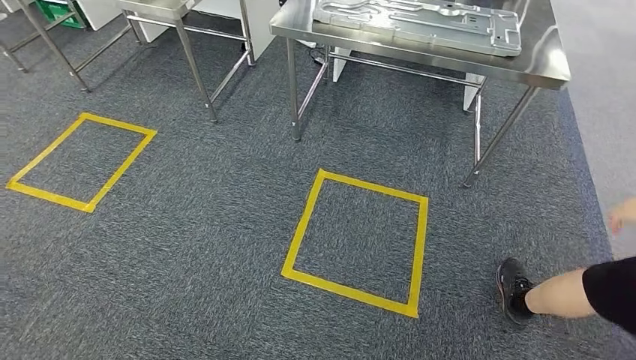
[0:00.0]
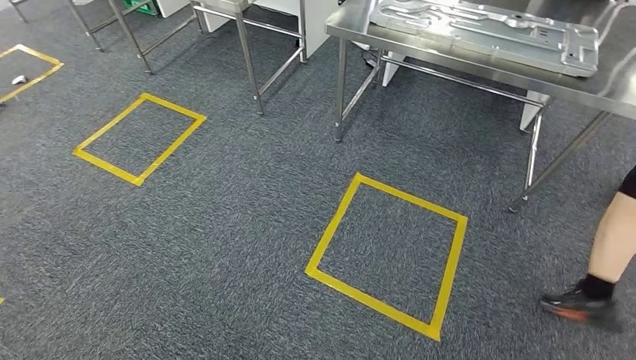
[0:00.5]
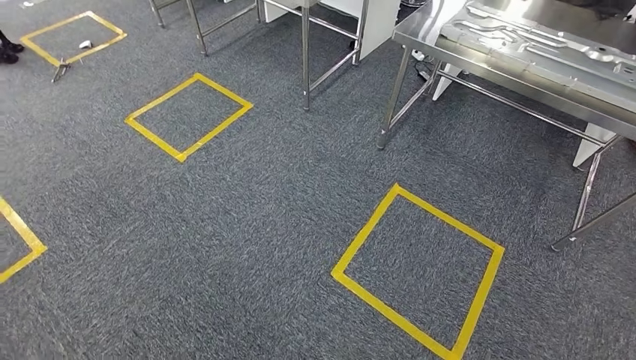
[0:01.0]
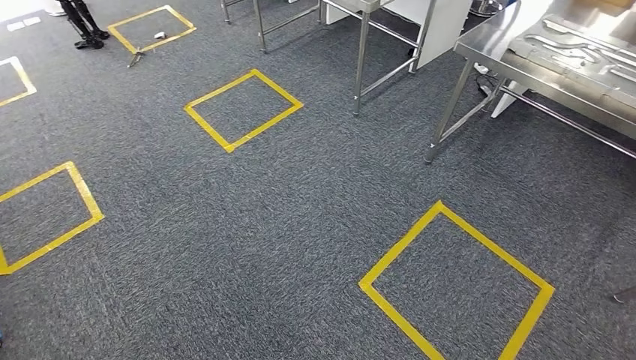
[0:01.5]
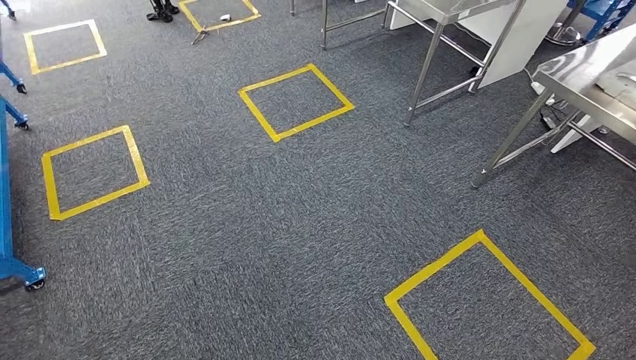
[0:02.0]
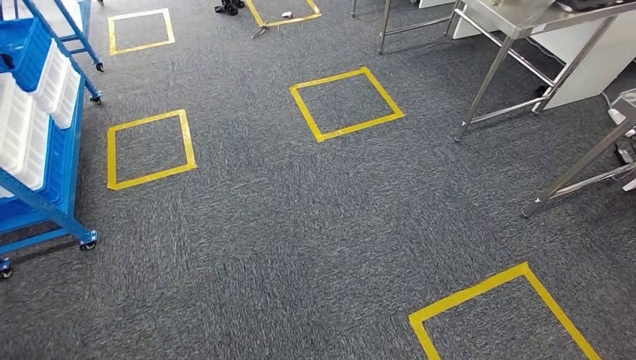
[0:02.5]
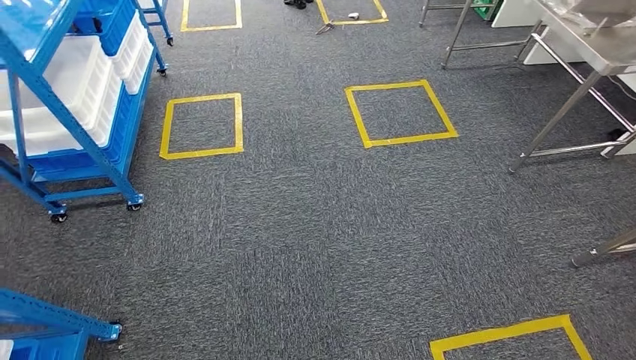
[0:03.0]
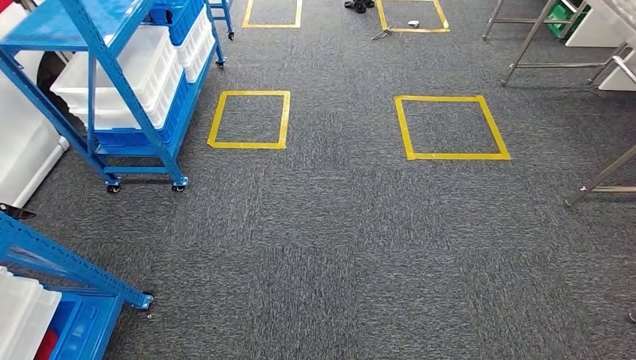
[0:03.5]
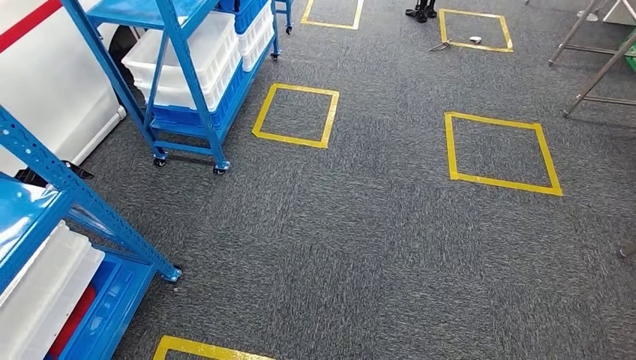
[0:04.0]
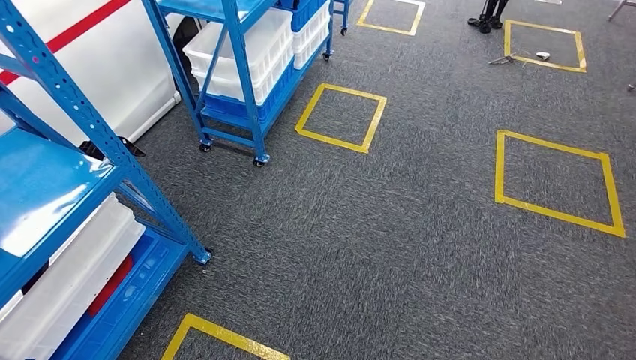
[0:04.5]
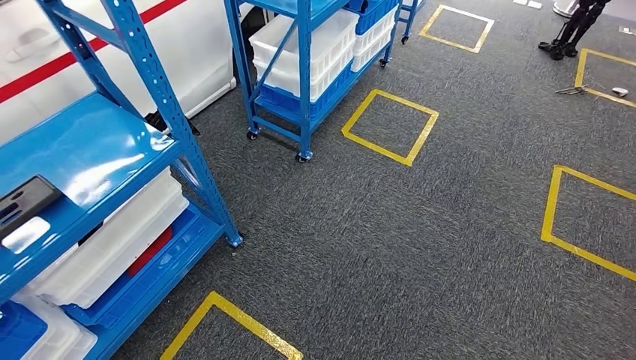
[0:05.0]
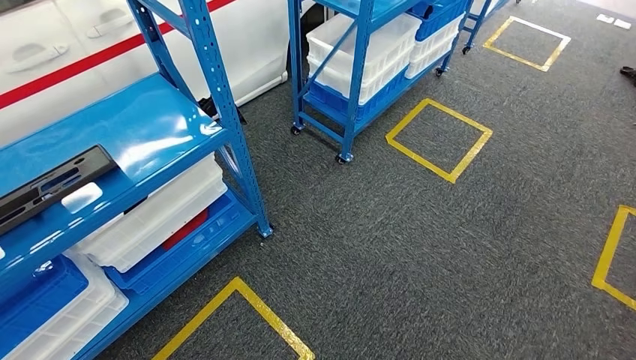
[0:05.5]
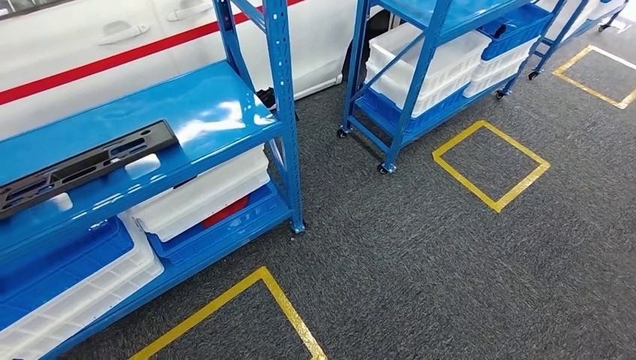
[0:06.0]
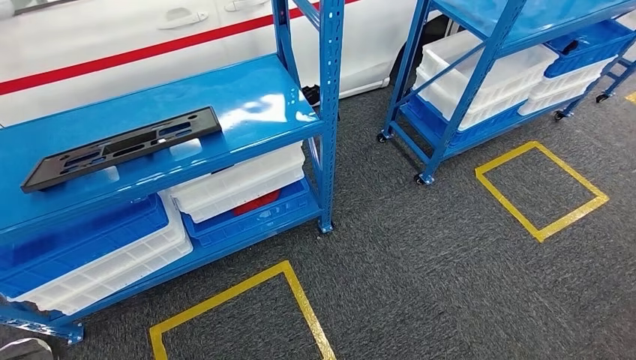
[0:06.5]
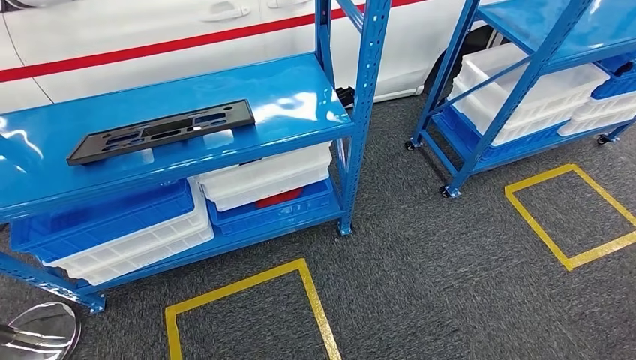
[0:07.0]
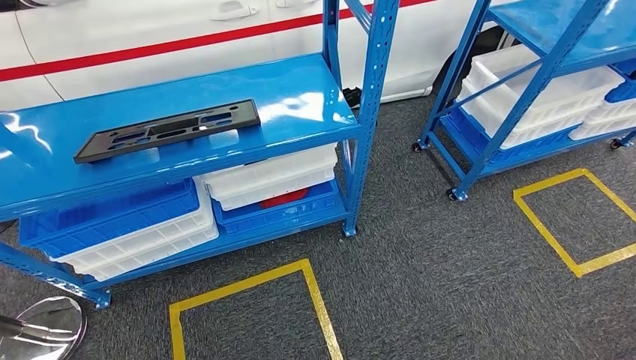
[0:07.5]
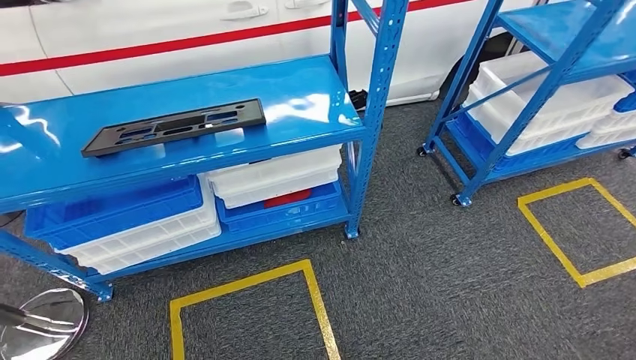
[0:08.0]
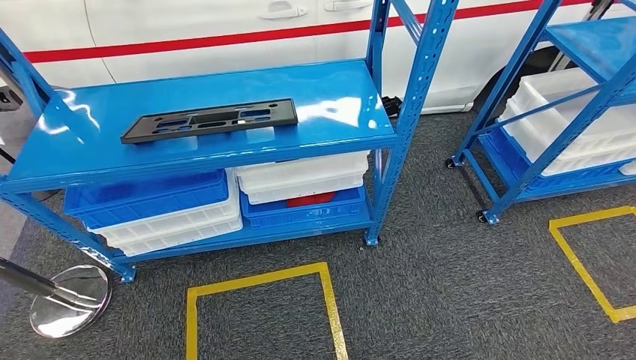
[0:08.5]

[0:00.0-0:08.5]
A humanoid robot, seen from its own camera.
Step, 0:00.0 to 0:08.5: Move to the initial position of the shelf.

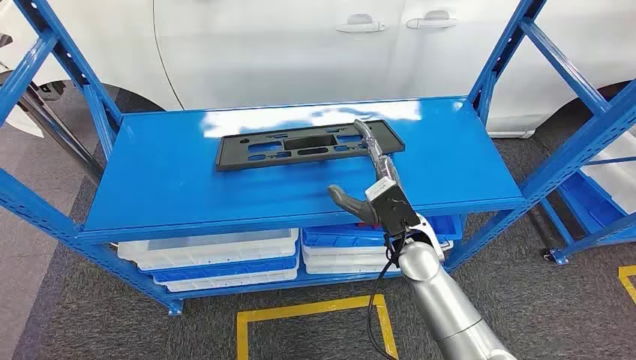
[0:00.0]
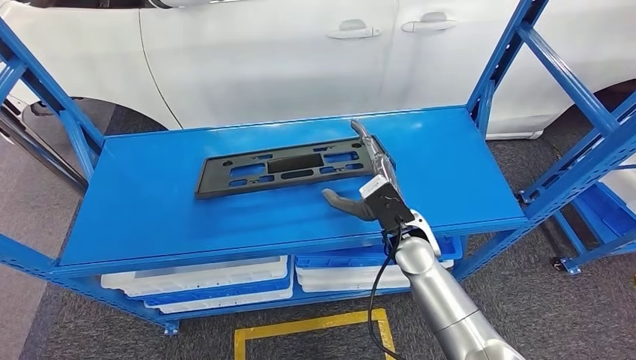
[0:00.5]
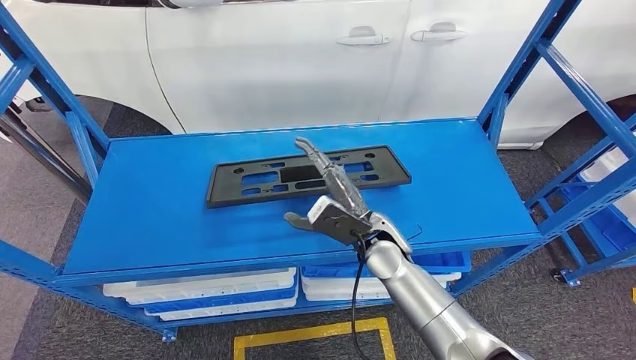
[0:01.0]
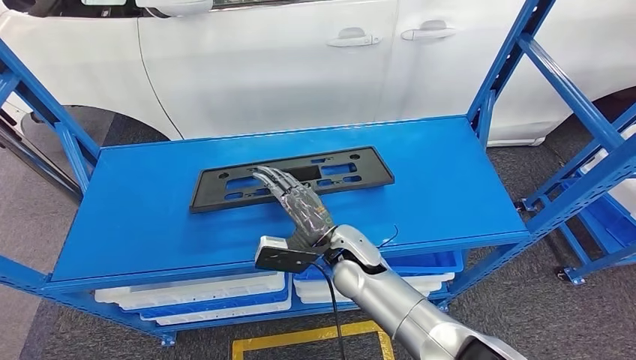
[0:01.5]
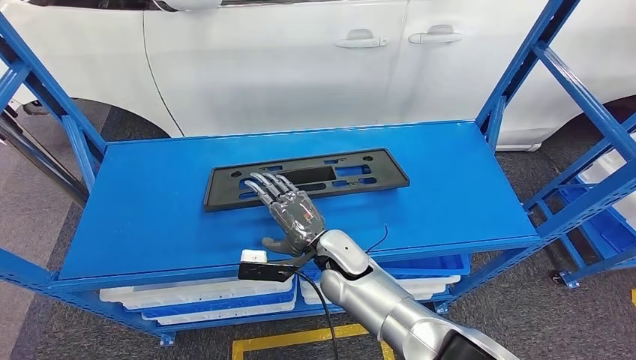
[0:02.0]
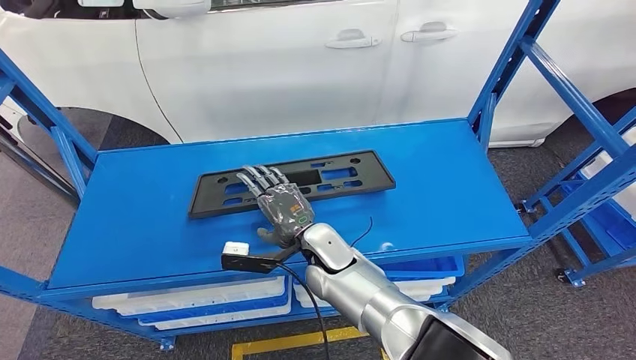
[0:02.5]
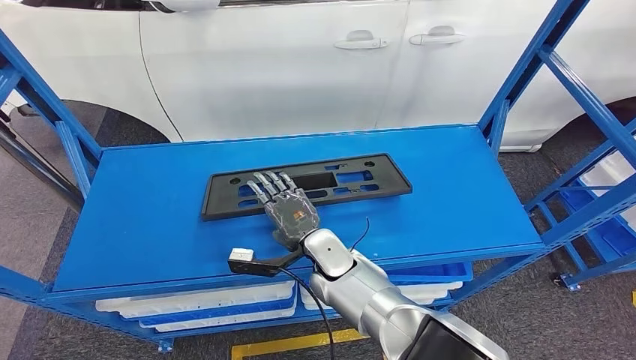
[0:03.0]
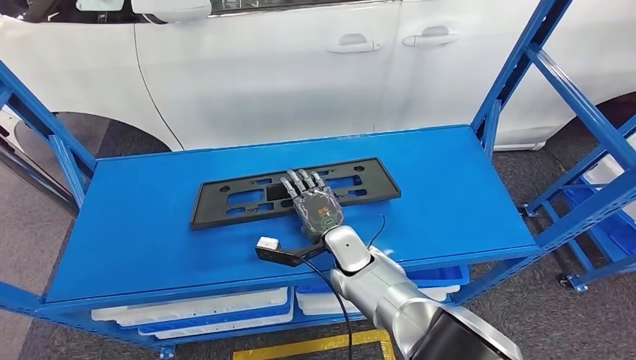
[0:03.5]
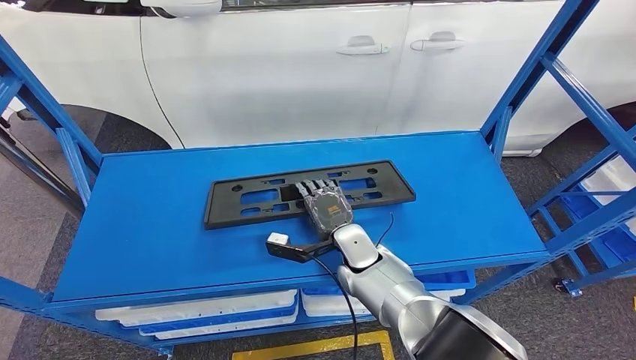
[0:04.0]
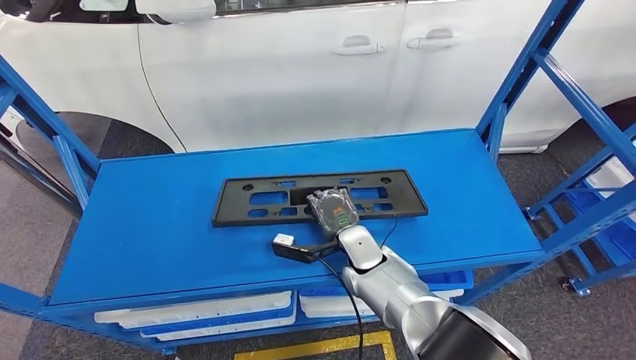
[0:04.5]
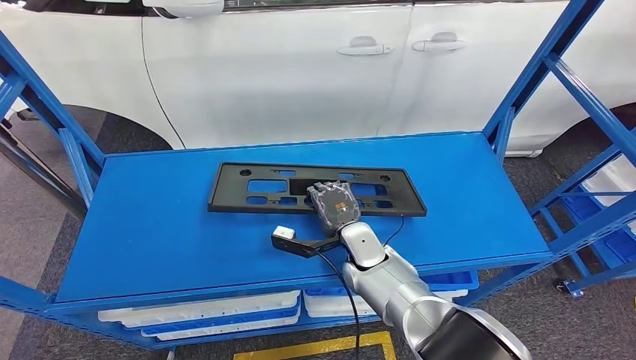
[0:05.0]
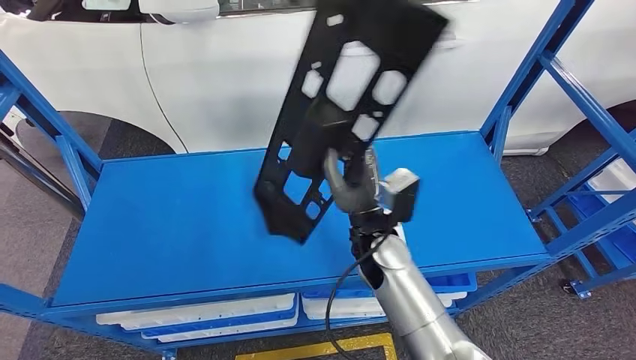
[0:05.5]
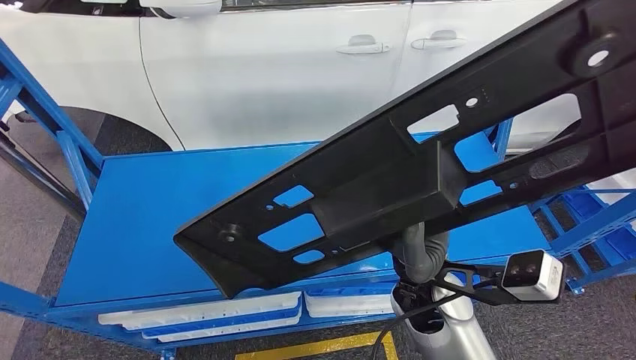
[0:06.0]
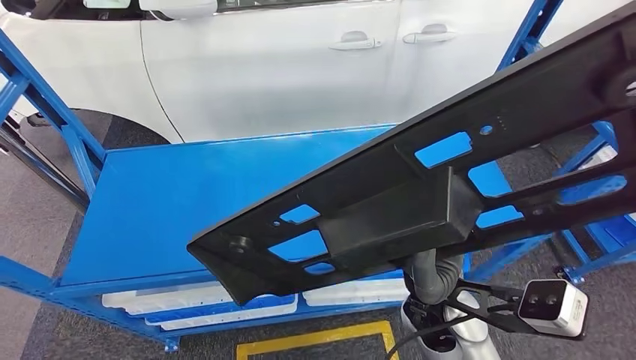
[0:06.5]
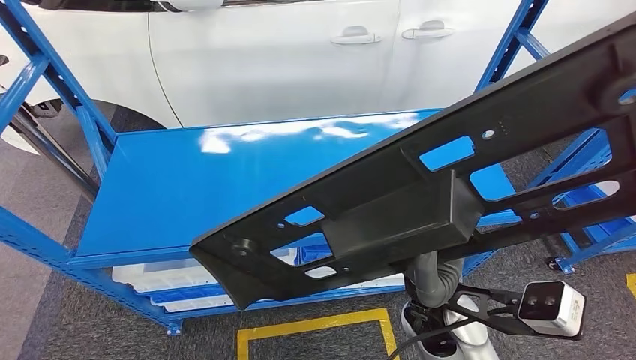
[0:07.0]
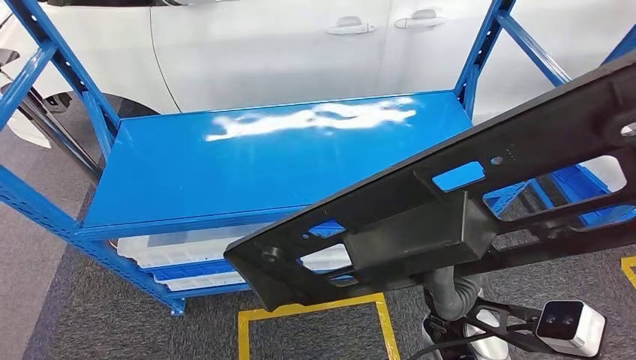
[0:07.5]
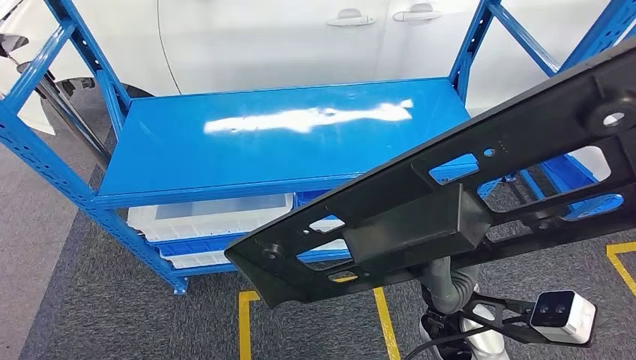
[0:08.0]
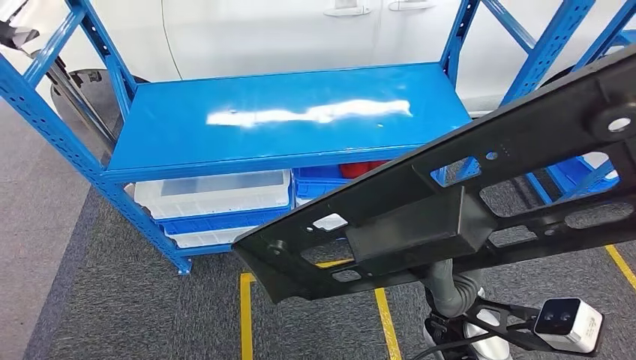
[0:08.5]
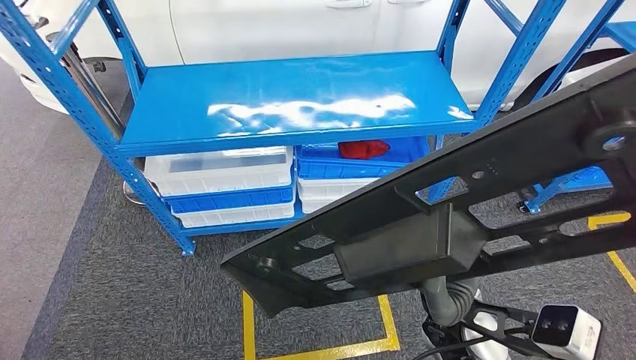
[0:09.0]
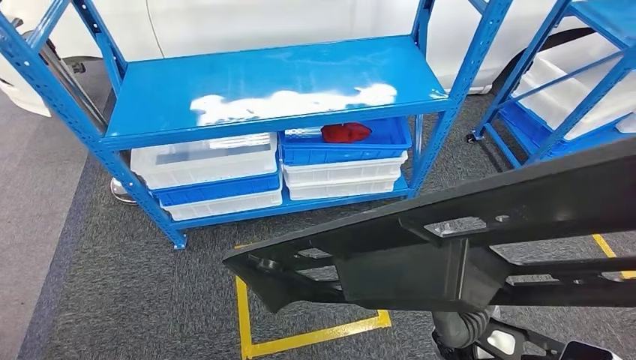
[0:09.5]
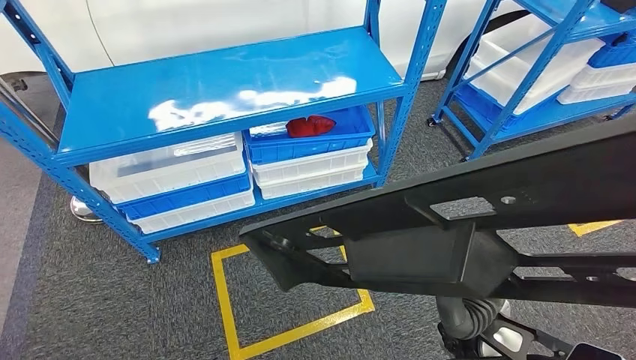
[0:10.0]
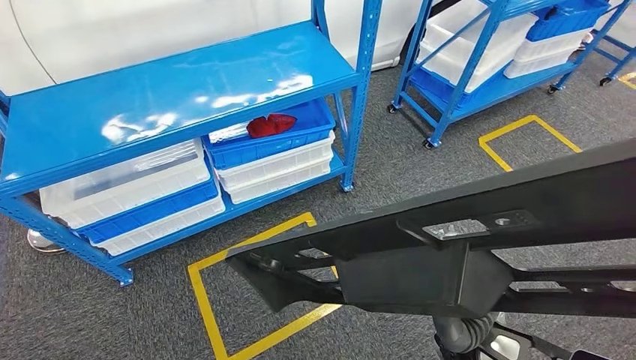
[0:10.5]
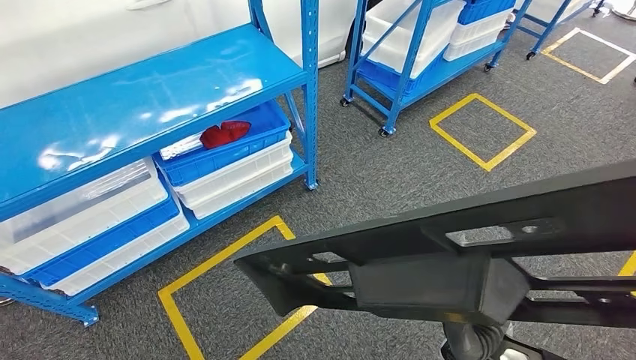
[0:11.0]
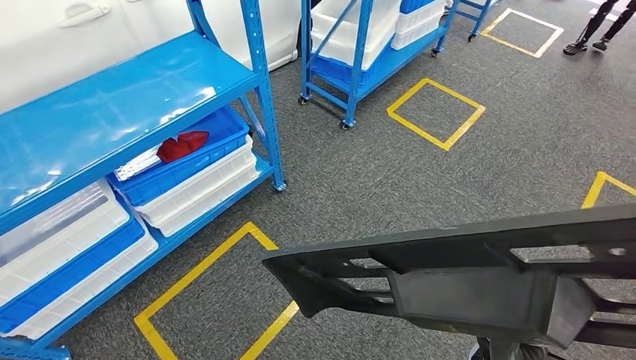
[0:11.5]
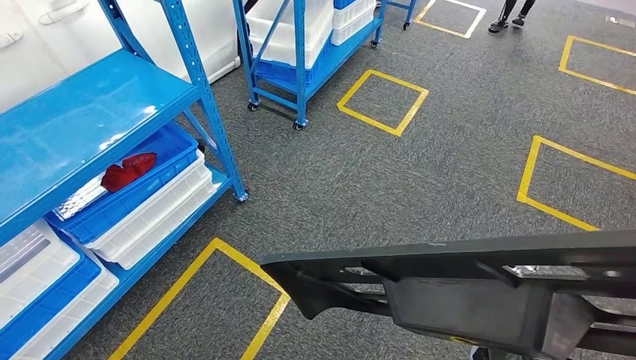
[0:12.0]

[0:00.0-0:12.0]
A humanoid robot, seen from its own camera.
Step, 0:00.0 to 0:09.0: Pick up the large material from the shelf.
